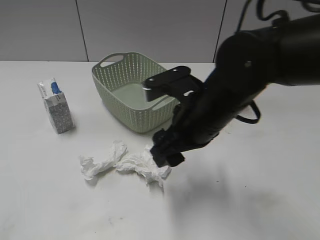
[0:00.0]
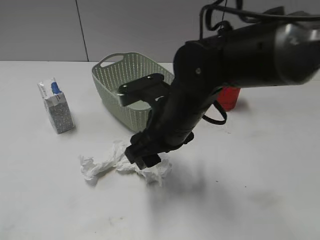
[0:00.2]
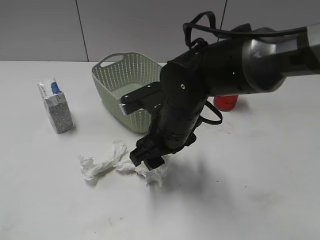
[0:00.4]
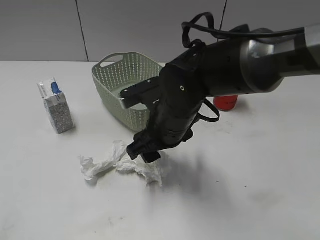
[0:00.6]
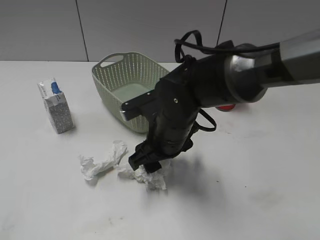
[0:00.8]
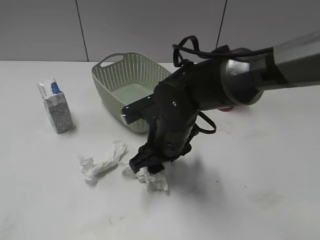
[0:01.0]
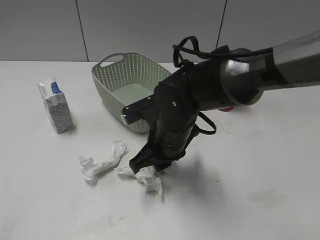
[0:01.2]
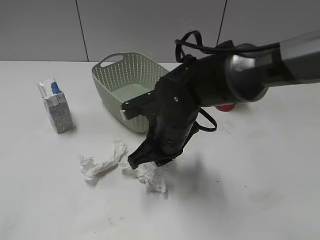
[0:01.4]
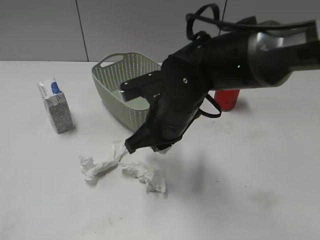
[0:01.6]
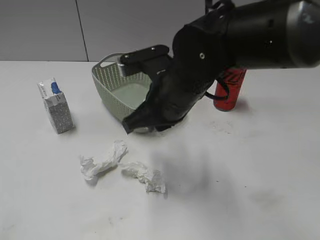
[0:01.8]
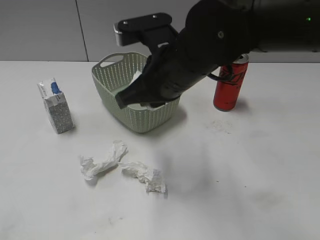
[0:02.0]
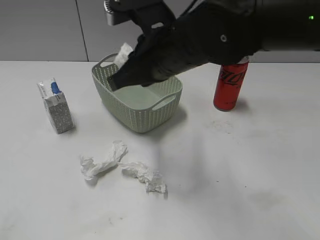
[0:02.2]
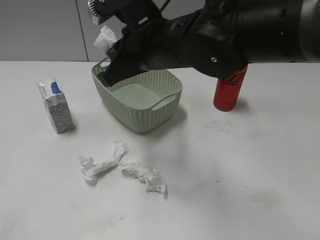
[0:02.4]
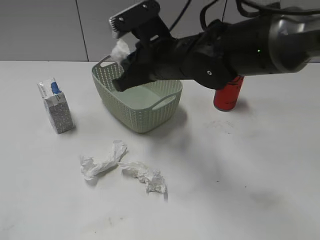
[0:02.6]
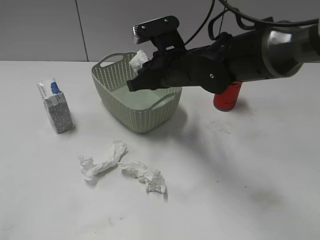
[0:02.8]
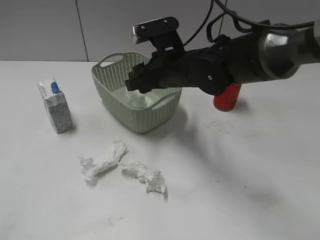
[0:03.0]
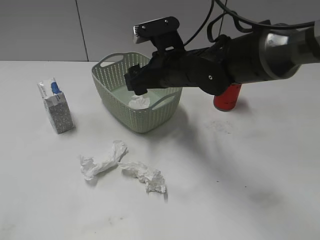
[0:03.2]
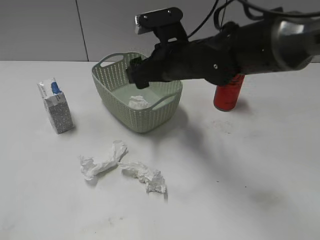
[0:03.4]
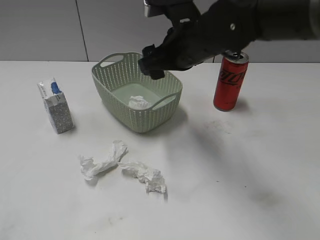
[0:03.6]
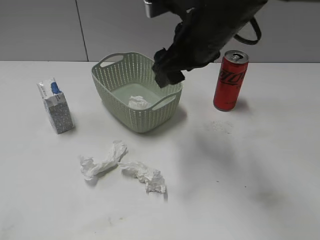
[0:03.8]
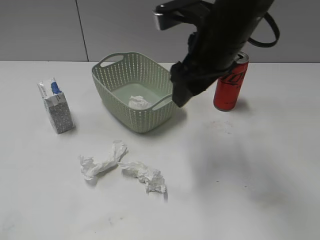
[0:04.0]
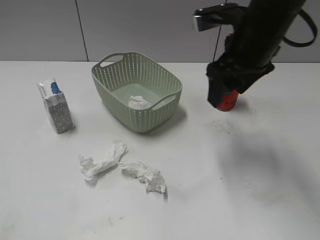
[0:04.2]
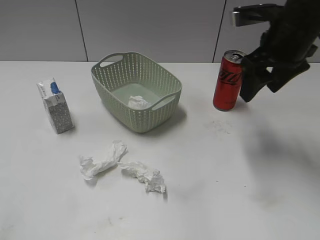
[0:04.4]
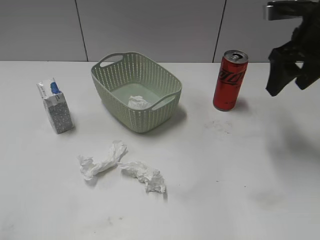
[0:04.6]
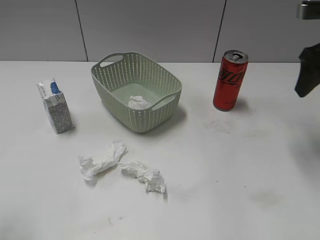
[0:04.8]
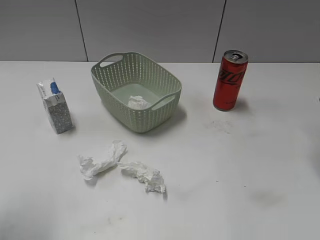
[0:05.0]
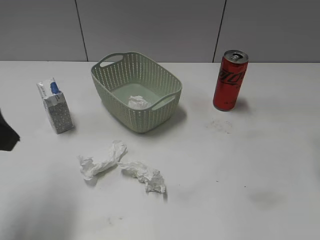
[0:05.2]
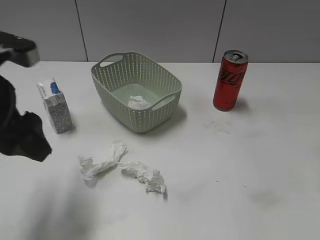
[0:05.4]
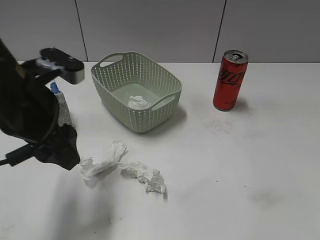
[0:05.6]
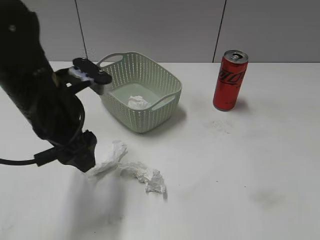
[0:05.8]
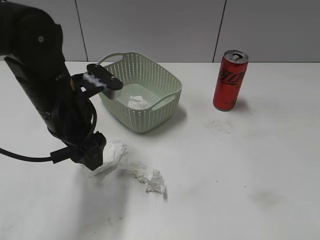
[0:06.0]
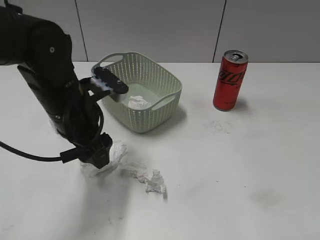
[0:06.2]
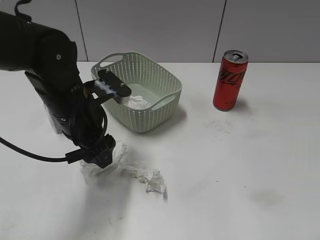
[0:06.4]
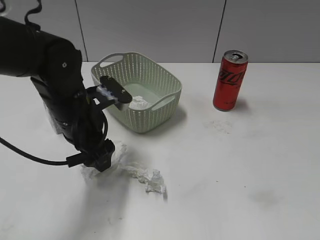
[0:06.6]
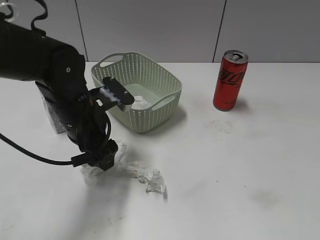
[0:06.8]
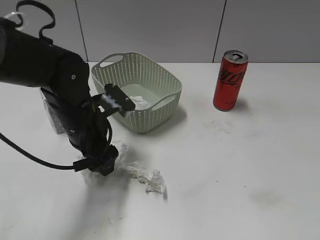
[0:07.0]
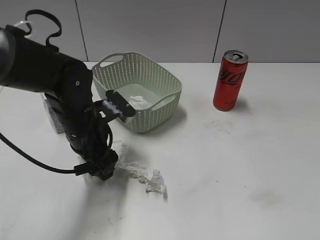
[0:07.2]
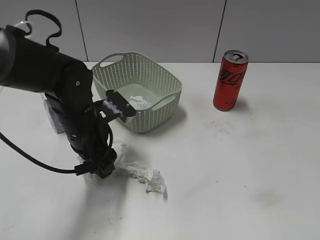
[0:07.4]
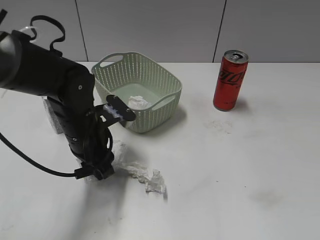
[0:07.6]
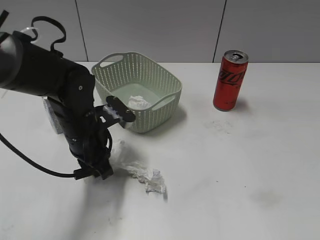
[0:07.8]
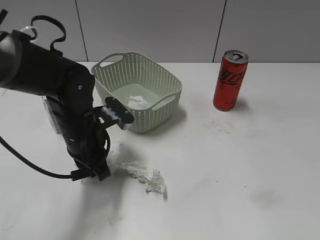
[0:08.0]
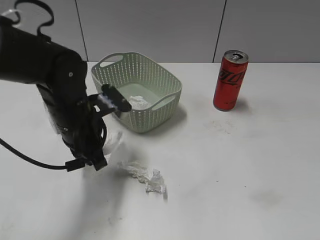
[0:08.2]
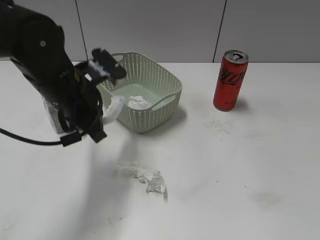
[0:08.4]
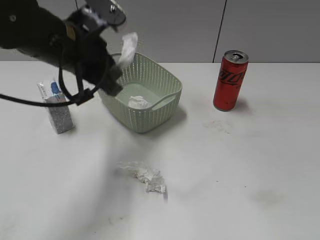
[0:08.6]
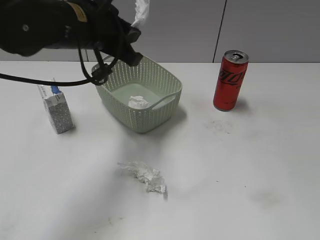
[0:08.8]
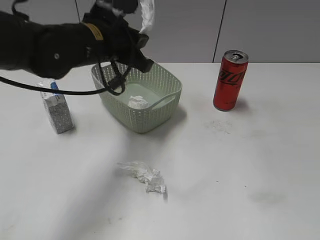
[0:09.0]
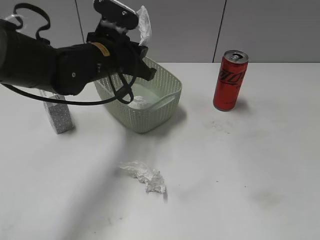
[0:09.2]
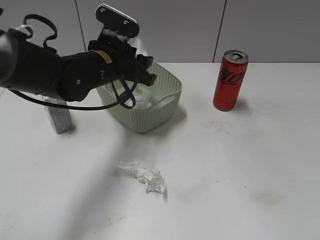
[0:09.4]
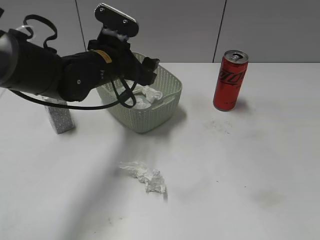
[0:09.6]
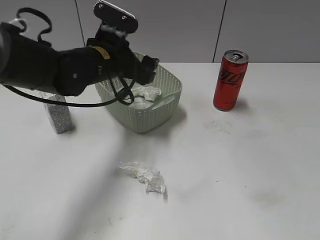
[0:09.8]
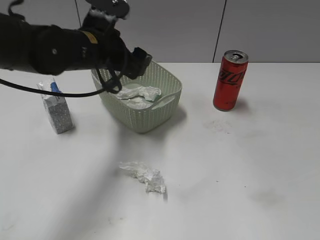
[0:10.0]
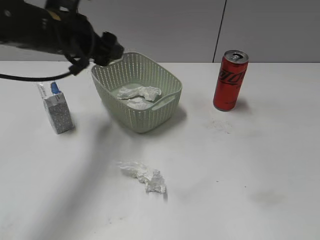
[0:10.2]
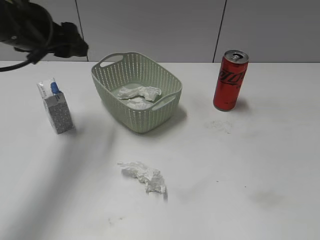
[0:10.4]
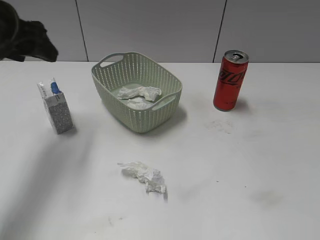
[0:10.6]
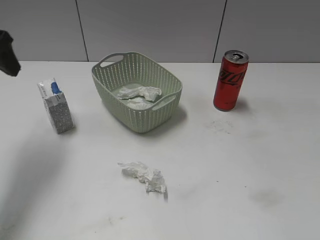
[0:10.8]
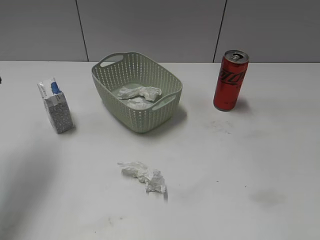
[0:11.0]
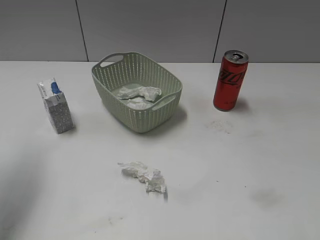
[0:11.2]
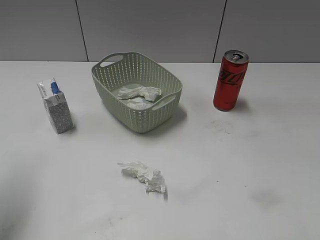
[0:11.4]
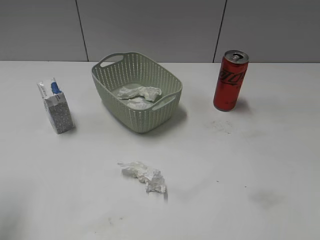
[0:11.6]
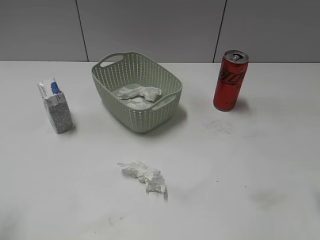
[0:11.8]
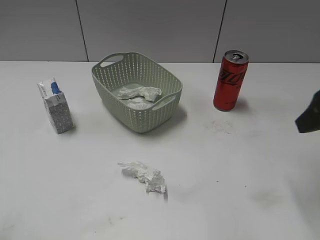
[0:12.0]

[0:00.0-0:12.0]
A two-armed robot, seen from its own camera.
Step, 0:01.4 to 0:03.2: Place the waste paper in the basket with right gripper.
Step, 0:03.4 to 0:08.0: Grasp the waste paper with left gripper.
Step, 0:08.2 to 0:09.6: Place the waste paper in the basket with left gripper.
0:00.0 to 0:01.6: The right gripper travels downward and back again, roughly 10 cm each way, and closes up.
0:01.6 to 0:03.0: The right gripper is displaced forward by some 10 cm, goes upward and returns, some 10 cm each way, and opens.
0:03.0 to 0:04.4: The right gripper is displaced to the right and upward by approximately 20 cm.
0:04.4 to 0:06.0: The left gripper travels forward, to the right and downward by roughly 30 cm; the right gripper travels backward and to the right by about 25 cm.
0:06.0 to 0:07.6: The right gripper is displaced backward by some 10 cm; the left gripper travels downward by roughly 10 cm, and closes up.
0:07.6 to 0:09.0: The left gripper heads upward and forward, covering about 10 cm, and closes its fingers.
0:09.0 to 0:10.4: The left gripper moves to the left and upward, some 10 cm, and opens its fingers.
0:10.4 to 0:12.0: The left gripper goes some 25 cm backward. Meanwhile the right gripper travels forward by roughly 20 cm.

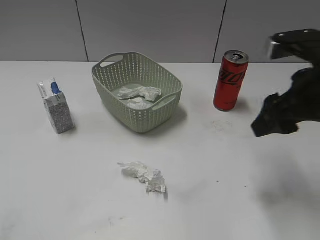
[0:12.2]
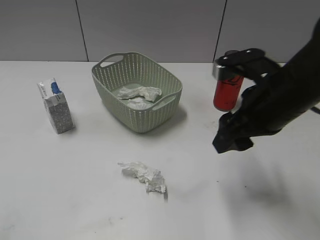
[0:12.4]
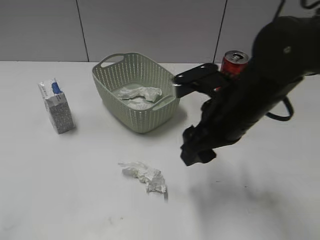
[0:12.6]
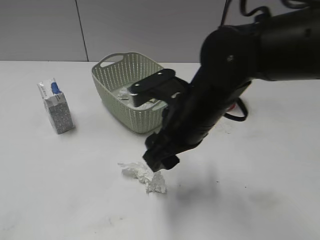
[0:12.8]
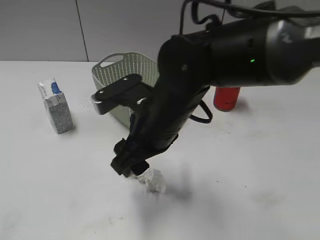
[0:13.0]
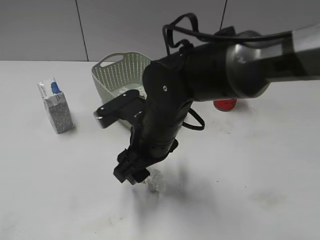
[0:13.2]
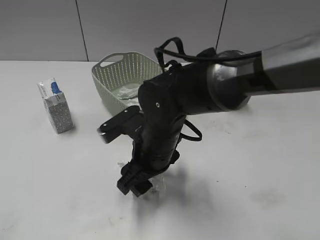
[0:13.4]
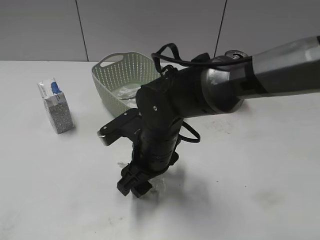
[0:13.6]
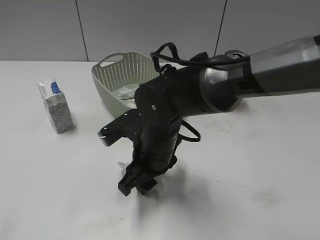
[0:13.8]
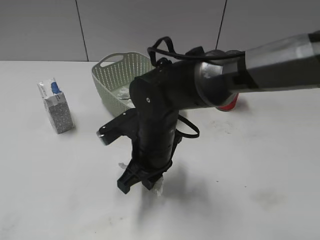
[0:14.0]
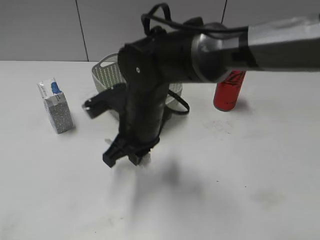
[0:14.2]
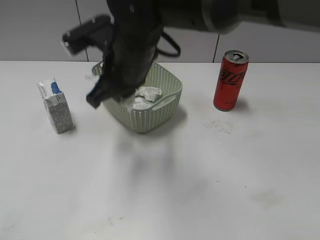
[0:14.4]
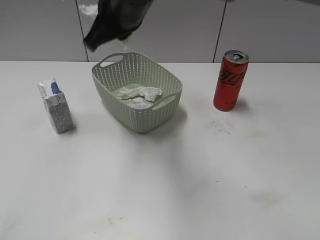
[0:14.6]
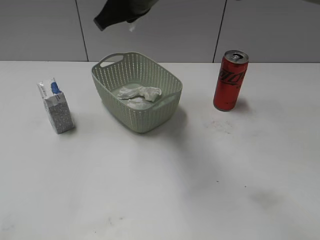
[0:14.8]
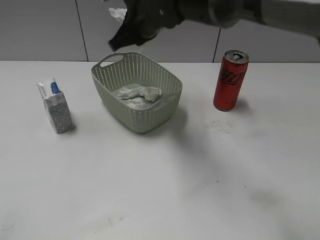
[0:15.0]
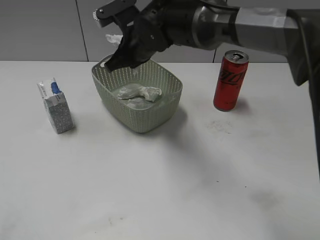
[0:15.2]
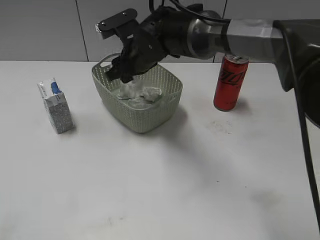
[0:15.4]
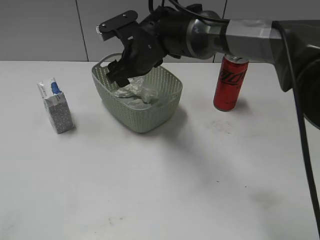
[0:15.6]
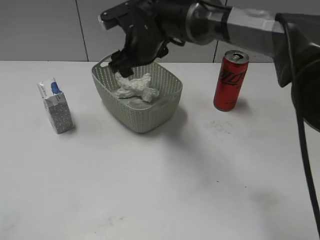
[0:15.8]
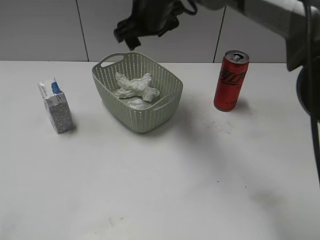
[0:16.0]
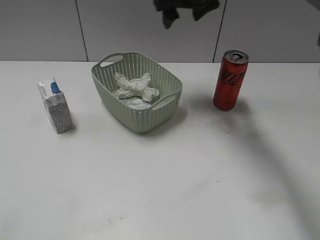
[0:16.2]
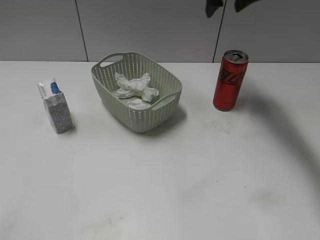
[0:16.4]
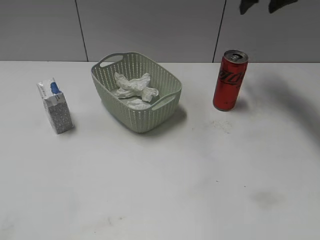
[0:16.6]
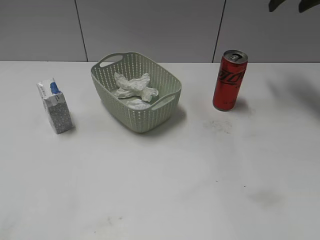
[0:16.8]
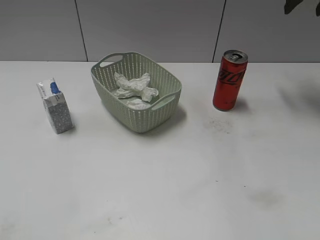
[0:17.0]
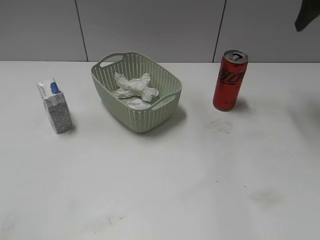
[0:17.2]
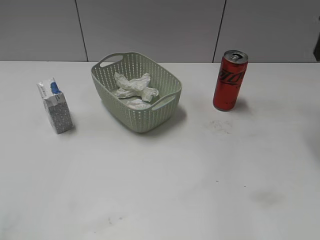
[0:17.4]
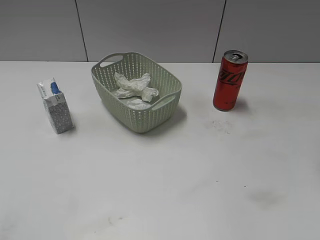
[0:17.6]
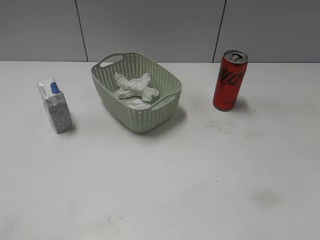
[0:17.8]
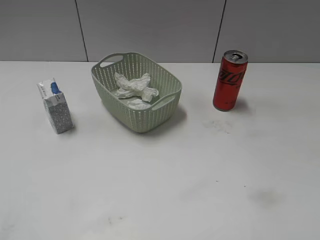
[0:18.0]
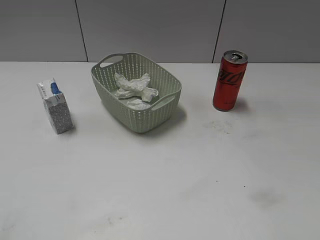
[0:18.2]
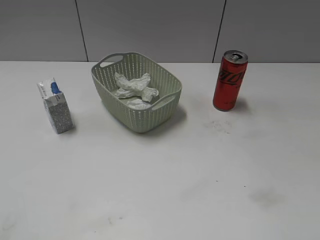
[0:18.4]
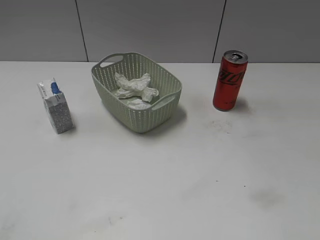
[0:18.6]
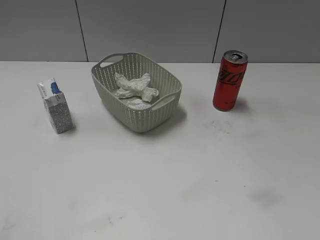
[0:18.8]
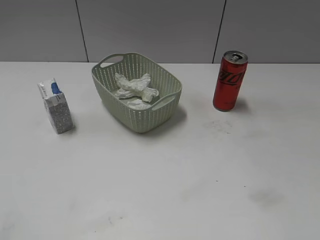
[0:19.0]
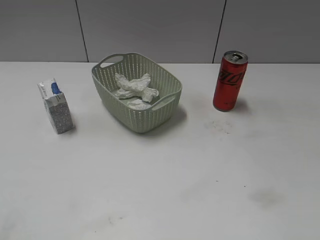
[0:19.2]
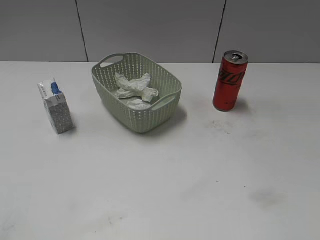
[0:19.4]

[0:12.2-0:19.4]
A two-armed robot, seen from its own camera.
Step, 0:12.2 to 0:14.2: Grasp the waste paper with right gripper.
Step, 0:14.4 to 0:16.0: Place the waste paper in the basket with right gripper.
0:12.2 to 0:13.6: The right gripper shifts approximately 25 cm to the left and downward. Meanwhile the left gripper is displaced backward by approximately 5 cm.
0:13.6 to 0:15.0: The right gripper heads forward and upward, covering approximately 20 cm, and closes up.
0:15.0 to 0:16.6: The right gripper moves to the right and forward, about 25 cm, and opens.
0:16.6 to 0:18.0: The right gripper moves backward, approximately 40 cm.

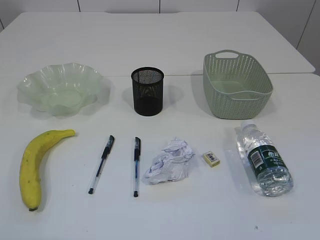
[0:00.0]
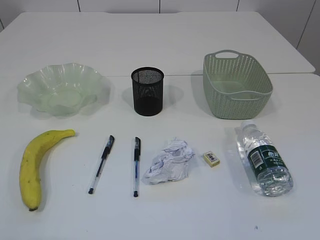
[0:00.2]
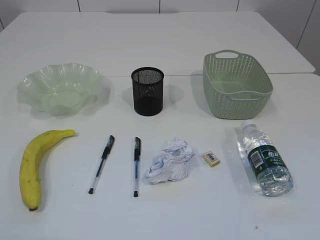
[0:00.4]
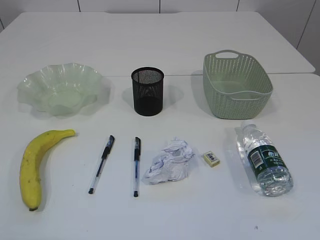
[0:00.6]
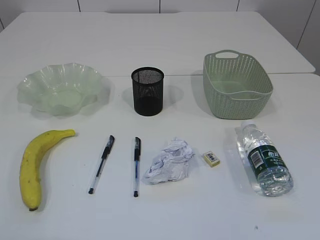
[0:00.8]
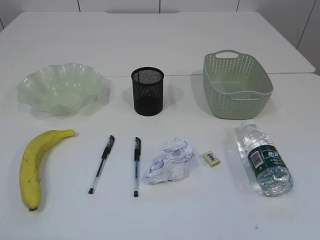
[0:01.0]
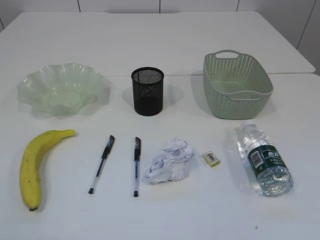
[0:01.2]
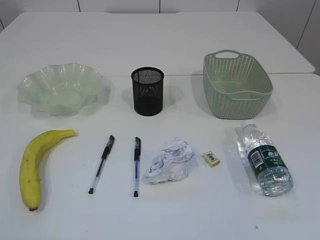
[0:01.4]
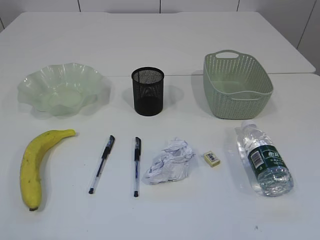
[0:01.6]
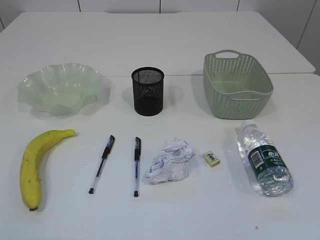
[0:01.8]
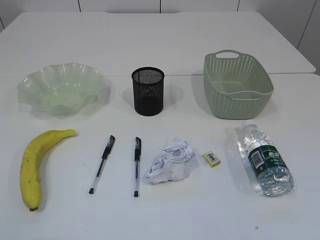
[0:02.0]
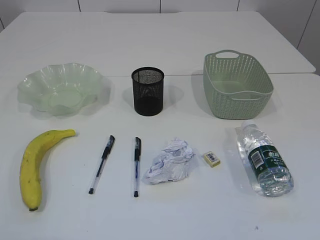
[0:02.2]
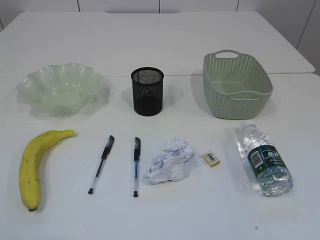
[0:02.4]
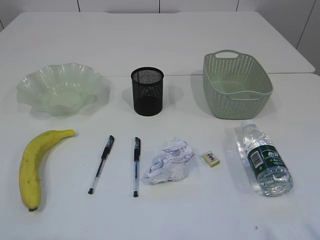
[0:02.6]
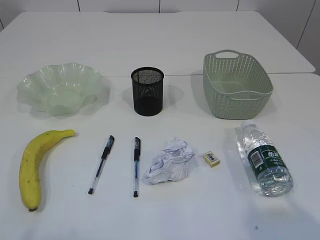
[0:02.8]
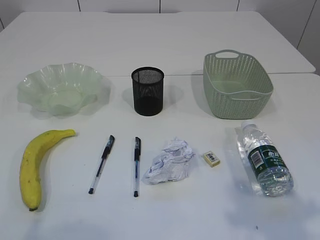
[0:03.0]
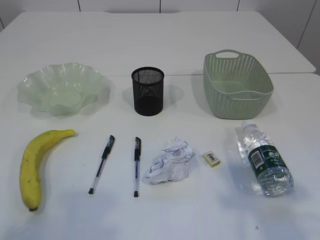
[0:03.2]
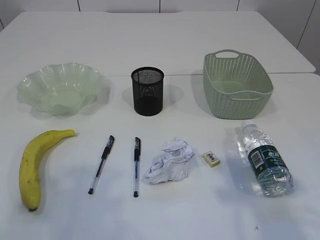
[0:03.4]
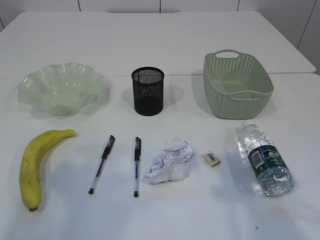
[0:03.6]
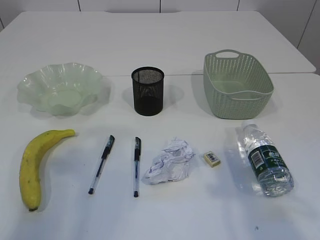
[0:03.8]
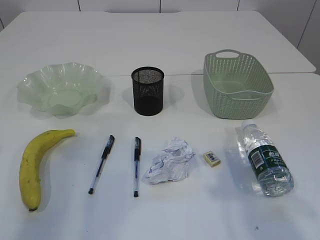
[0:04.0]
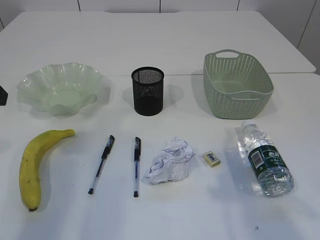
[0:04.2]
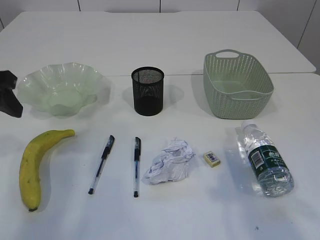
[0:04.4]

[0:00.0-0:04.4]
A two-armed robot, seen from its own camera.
0:01.4 to 0:03.0: The right gripper goes approximately 10 cm forward.
0:03.0 to 0:04.4: The left gripper shifts roughly 30 cm forward.
